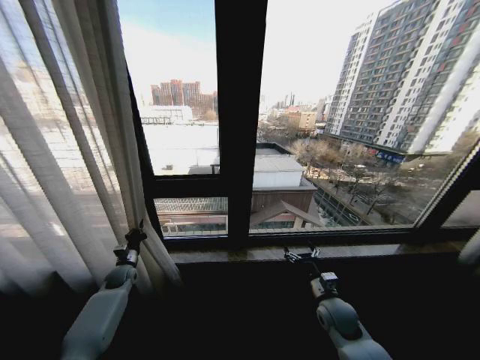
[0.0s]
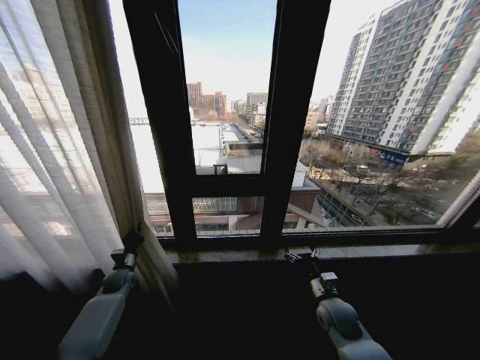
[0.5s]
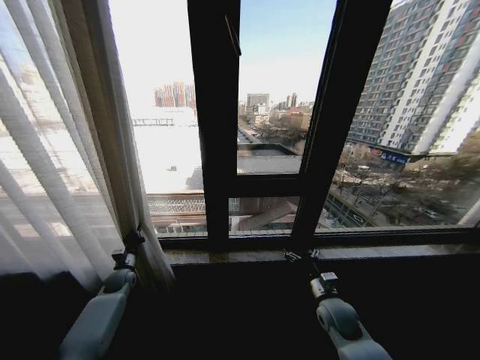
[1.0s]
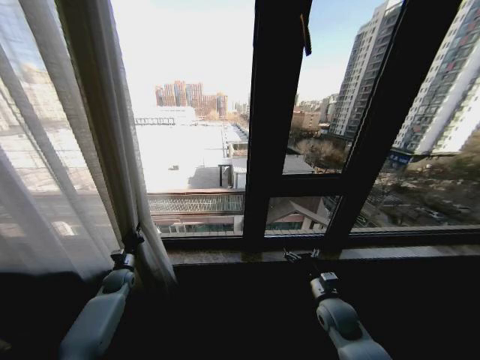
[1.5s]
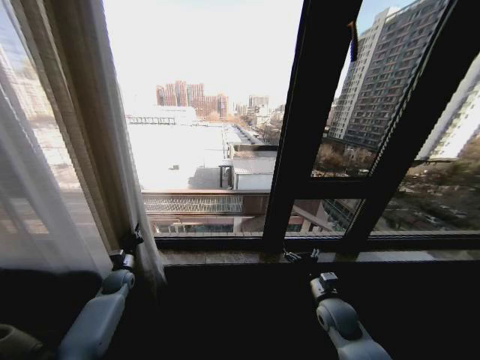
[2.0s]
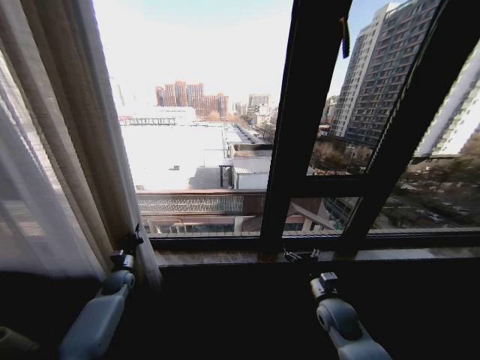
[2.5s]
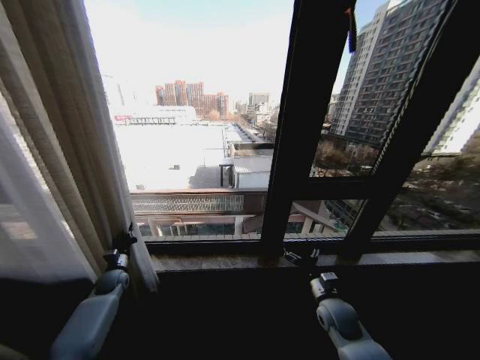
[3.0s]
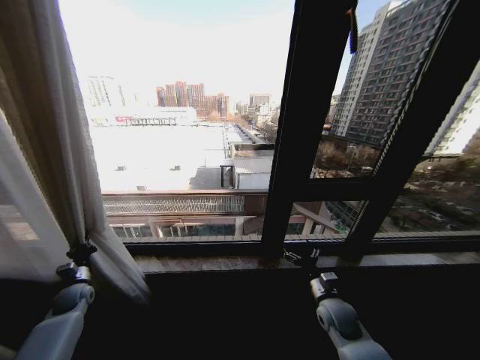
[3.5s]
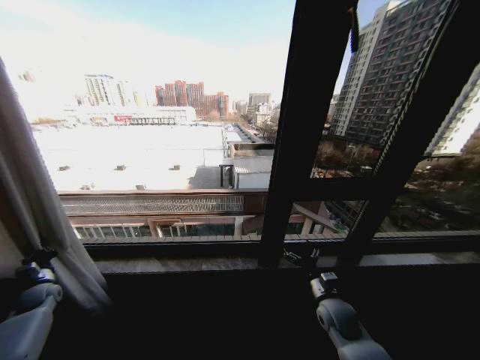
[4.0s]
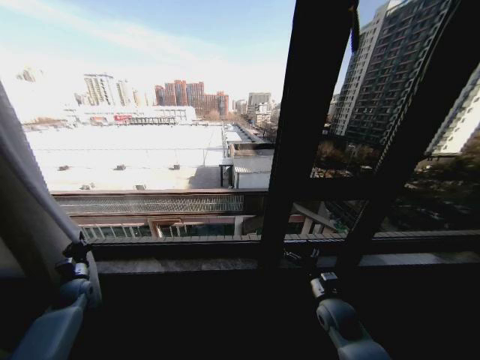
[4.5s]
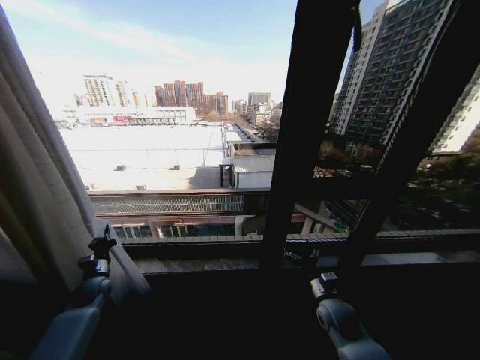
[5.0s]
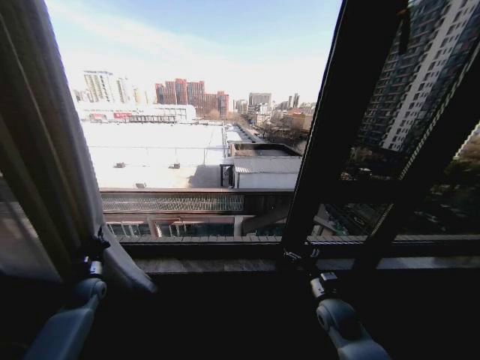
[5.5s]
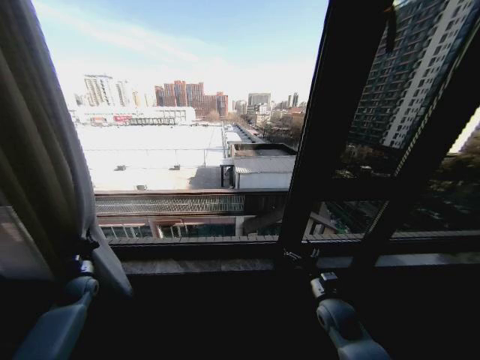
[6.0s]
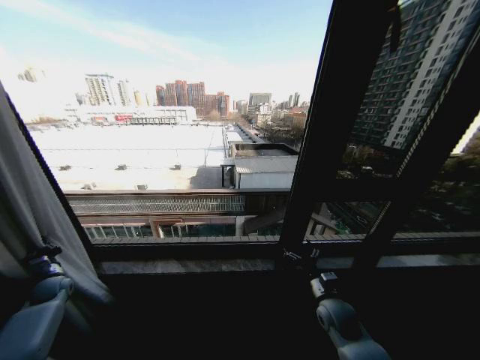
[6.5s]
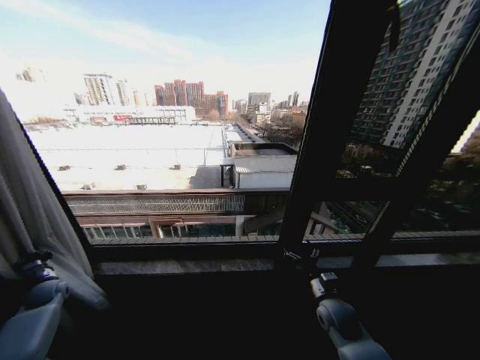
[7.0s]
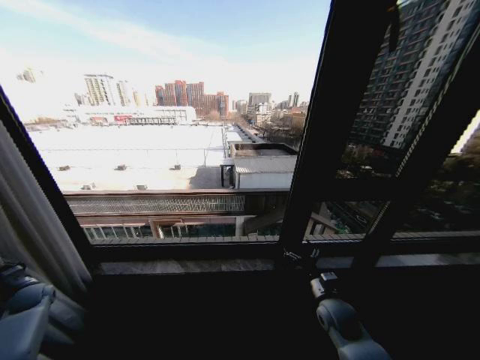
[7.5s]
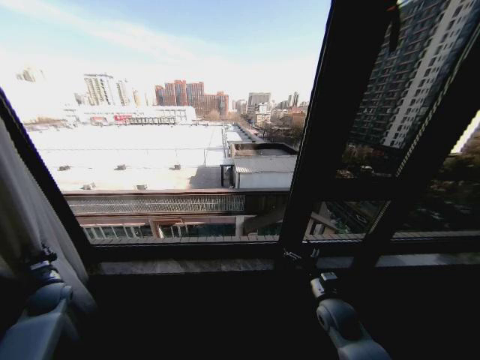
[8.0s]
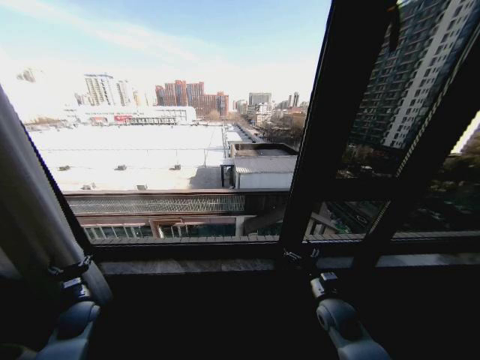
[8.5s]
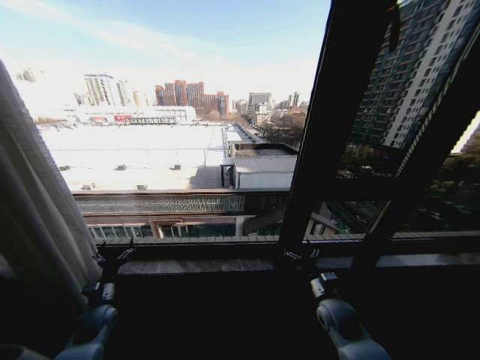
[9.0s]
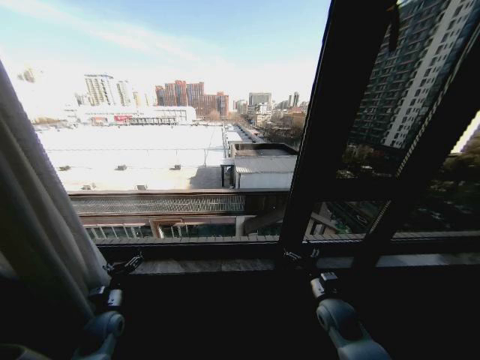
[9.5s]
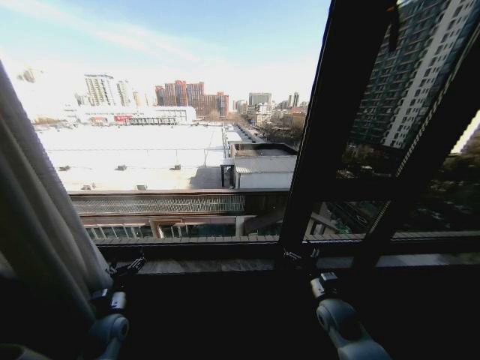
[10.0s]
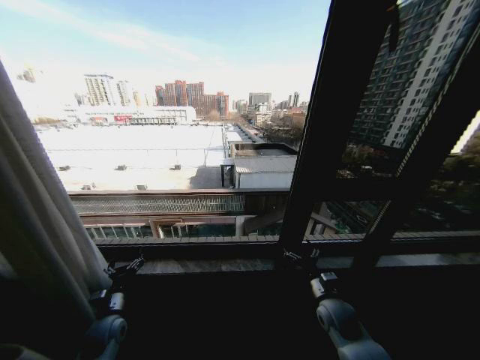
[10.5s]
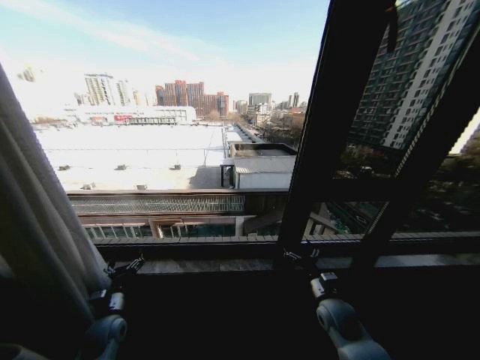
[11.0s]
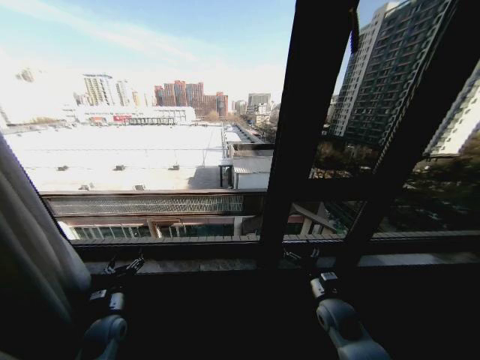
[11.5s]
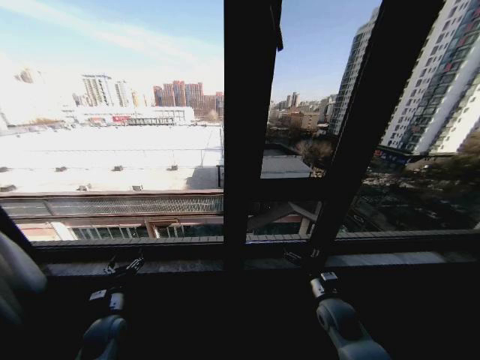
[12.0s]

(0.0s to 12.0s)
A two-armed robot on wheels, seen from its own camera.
Task of the whole recording: Open the curtains by pulling them apart, changing their state from closed to fully open.
2.0s - 4.0s: The left gripper heads to the left, covering about 20 cm.
4.0s - 6.0s: The left gripper travels to the right by about 10 cm.
8.0s - 10.0s: The left gripper goes roughly 20 cm to the right, and opens up.

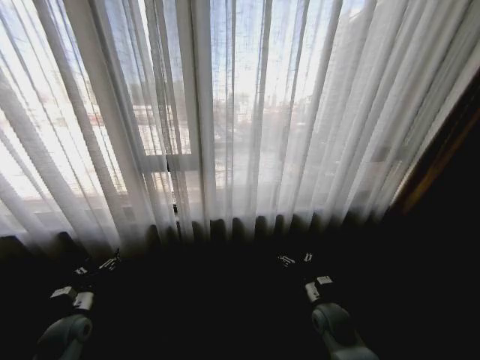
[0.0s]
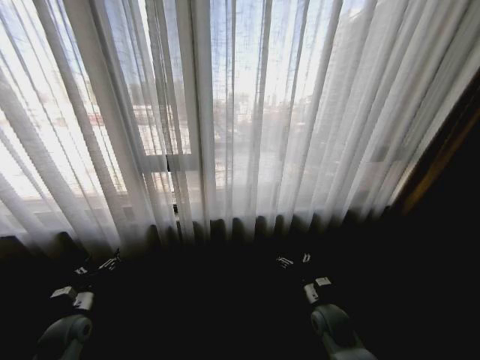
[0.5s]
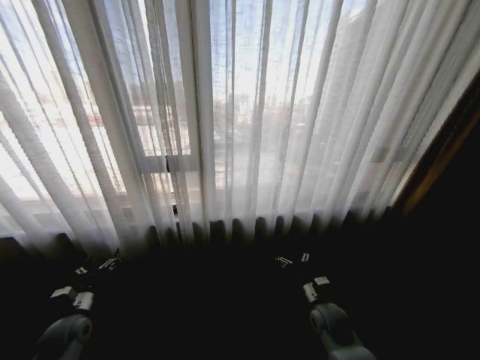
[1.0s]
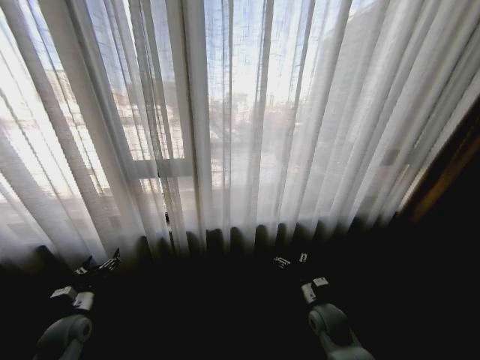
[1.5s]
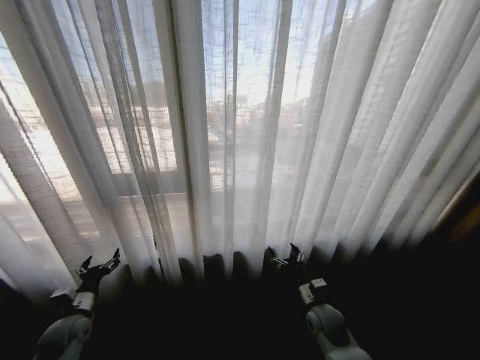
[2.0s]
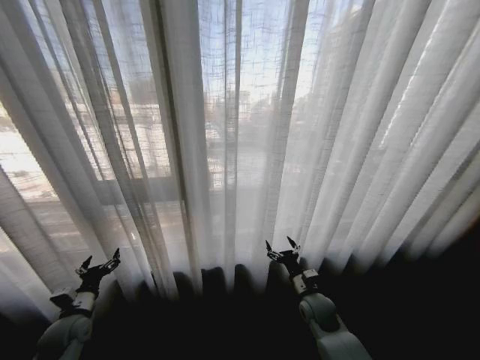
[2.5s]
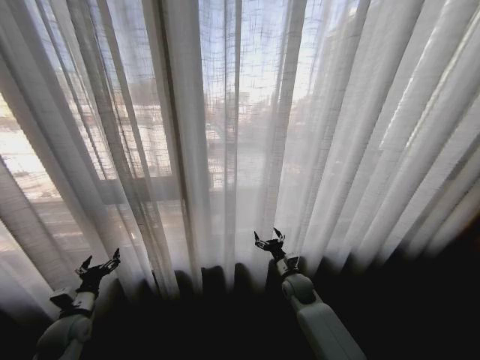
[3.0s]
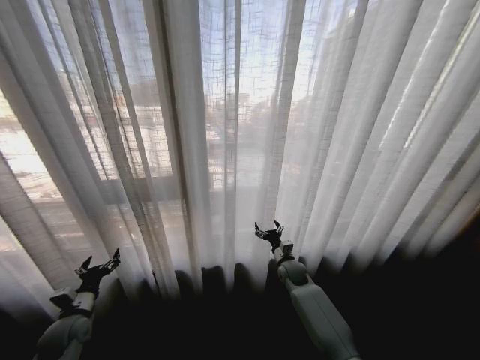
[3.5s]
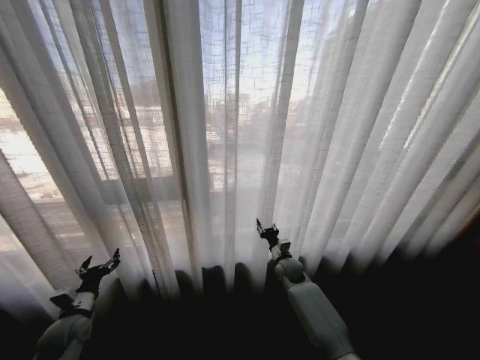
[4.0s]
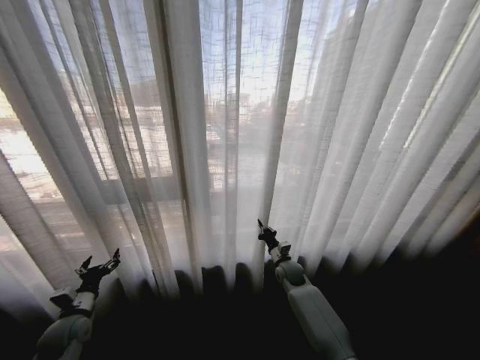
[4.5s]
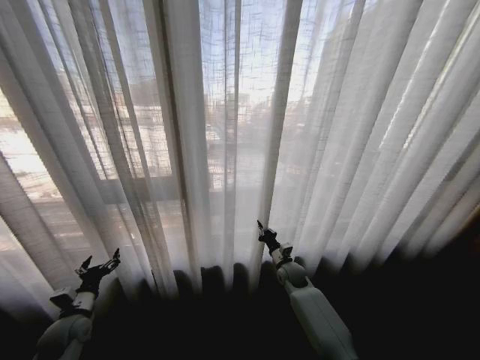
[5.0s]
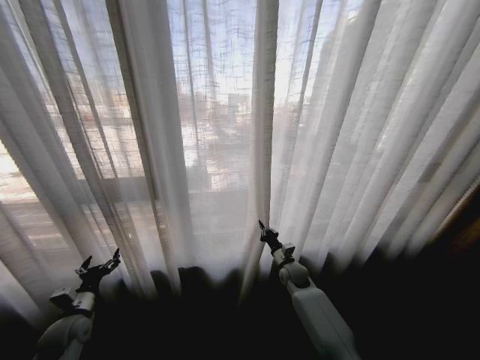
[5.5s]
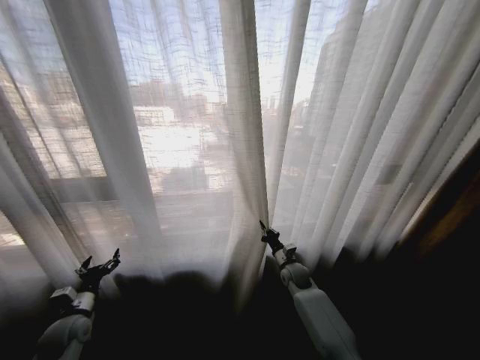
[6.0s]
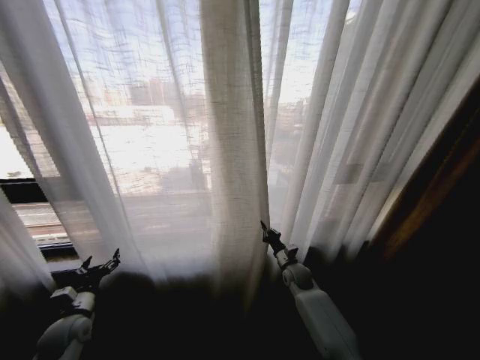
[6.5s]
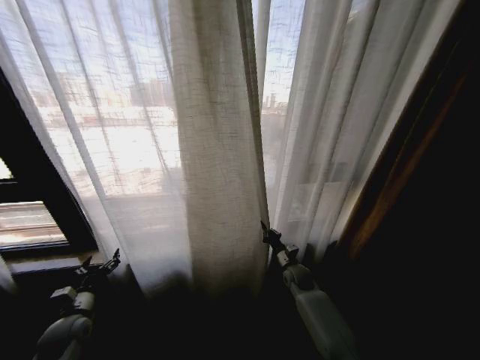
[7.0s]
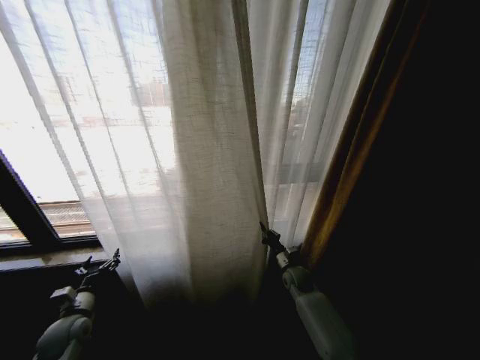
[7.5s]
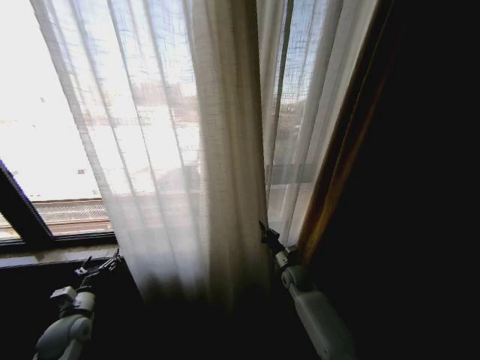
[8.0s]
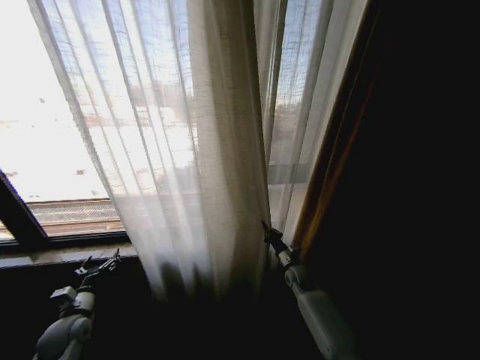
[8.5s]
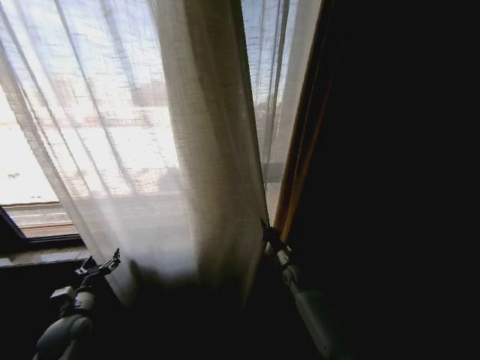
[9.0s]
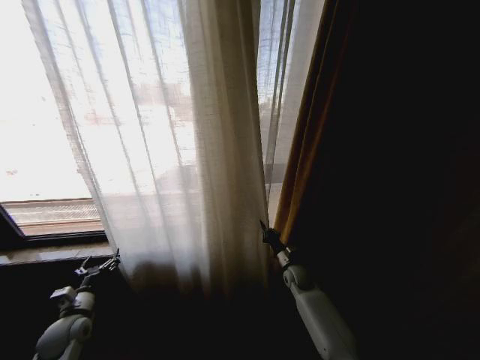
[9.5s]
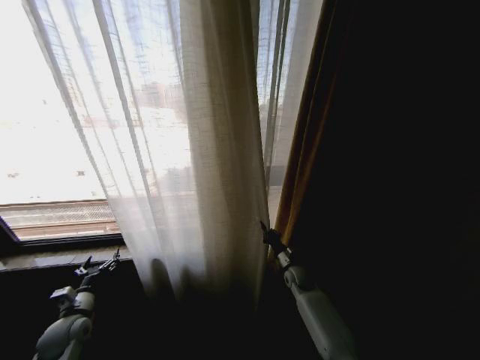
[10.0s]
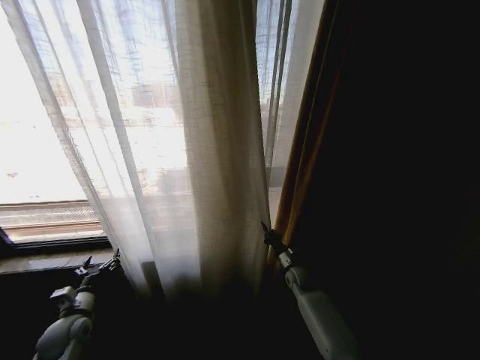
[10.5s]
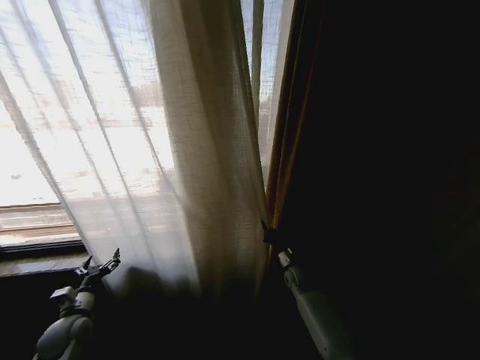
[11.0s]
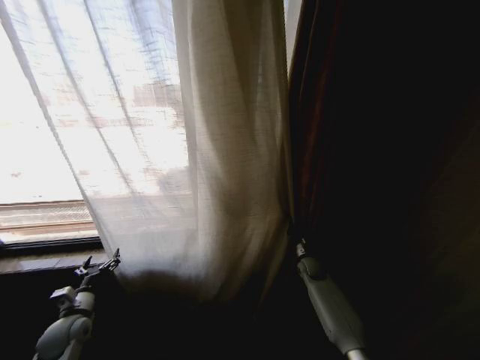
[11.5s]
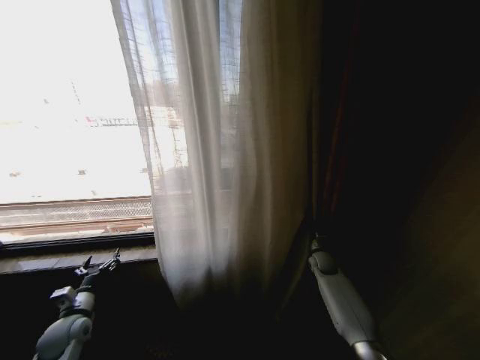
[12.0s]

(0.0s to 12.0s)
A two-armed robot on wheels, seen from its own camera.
Task of the whole recording: Open the curtains by pulling them apart, changing their state from closed to fully open.
2.0s - 4.0s: The right gripper heads forward, covering about 15 cm, and closes up.
4.0s - 6.0s: The right gripper closes its fingers.
10.0s - 12.0s: The right gripper moves to the right, about 10 cm.

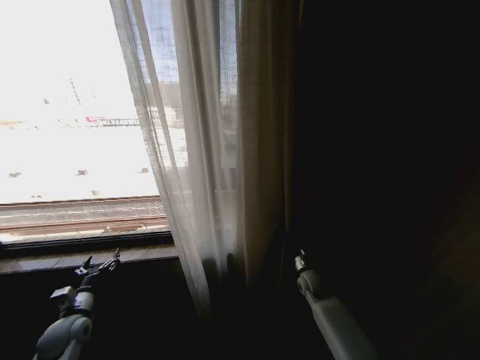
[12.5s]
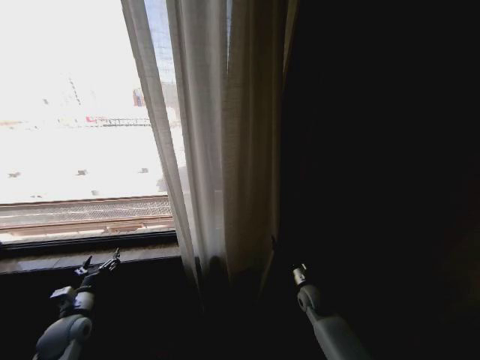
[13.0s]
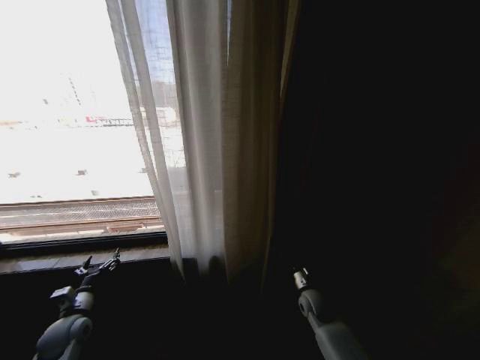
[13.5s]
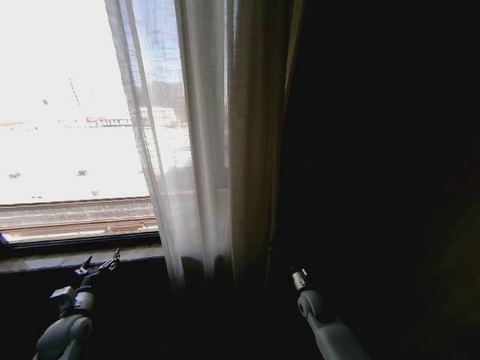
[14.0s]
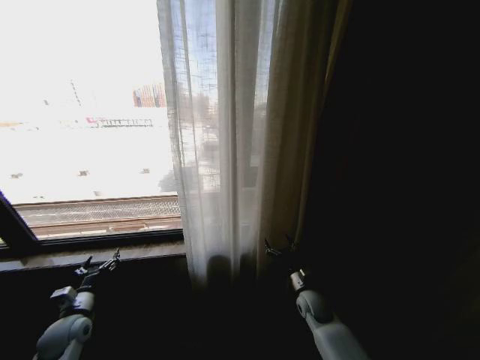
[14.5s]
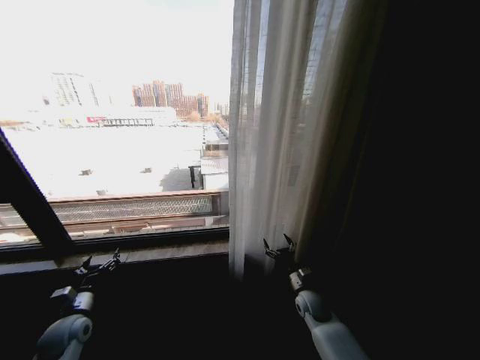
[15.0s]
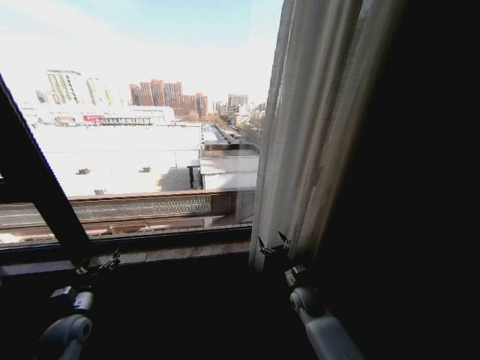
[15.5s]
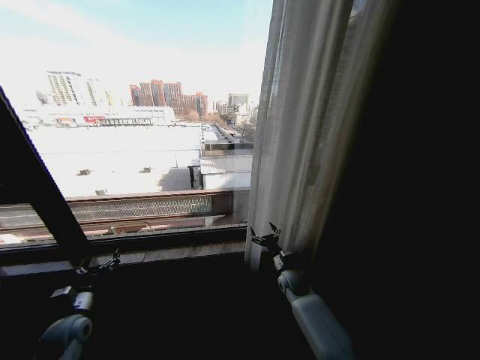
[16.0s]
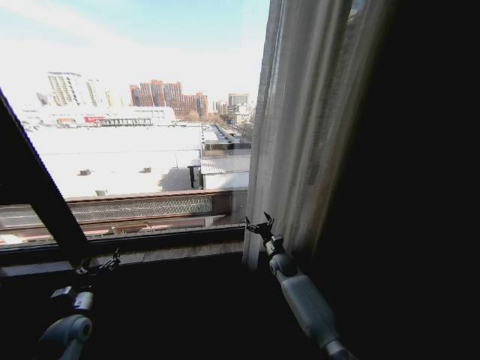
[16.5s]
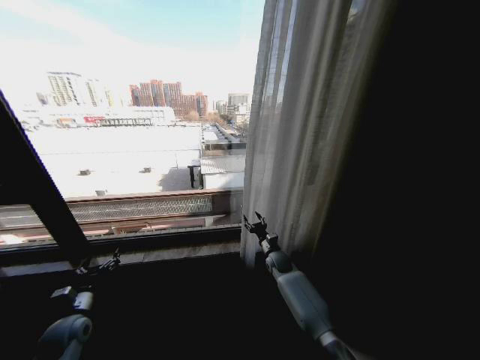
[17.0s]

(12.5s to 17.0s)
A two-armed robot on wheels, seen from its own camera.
Task of the whole recording: Open the curtains by pulling them apart, changing their state from closed to fully open.
12.5s - 14.5s: The right gripper shifts some 5 cm backward, and opens.
14.5s - 17.0s: The right gripper goes some 15 cm forward and to the left.
